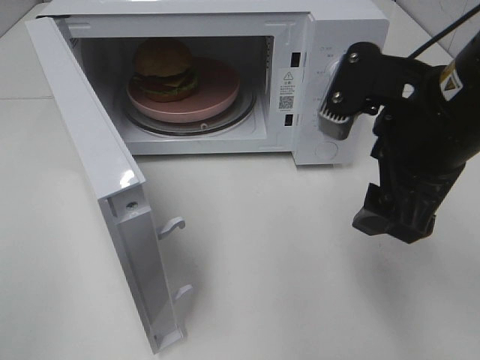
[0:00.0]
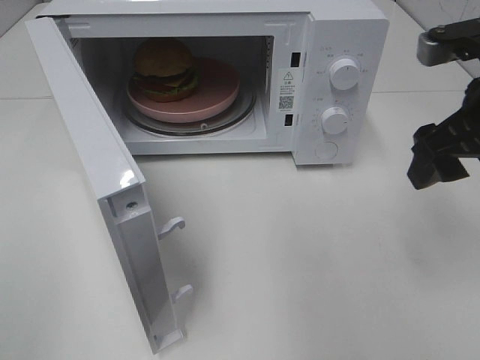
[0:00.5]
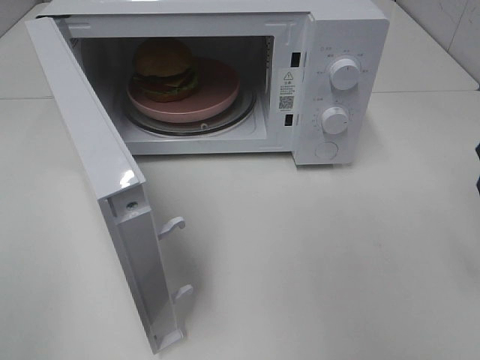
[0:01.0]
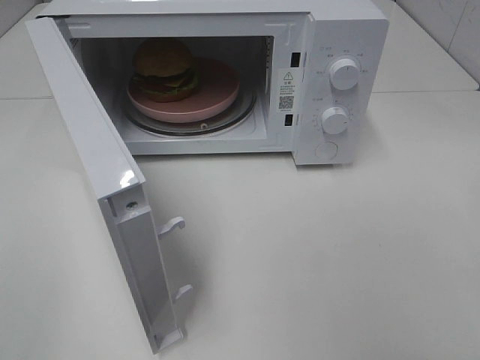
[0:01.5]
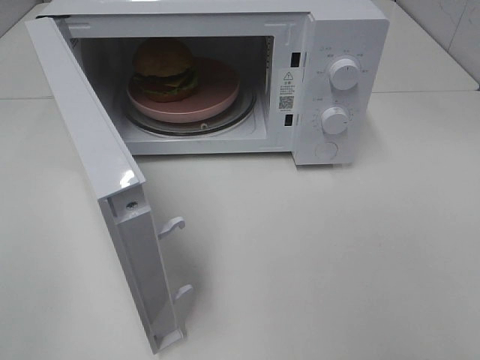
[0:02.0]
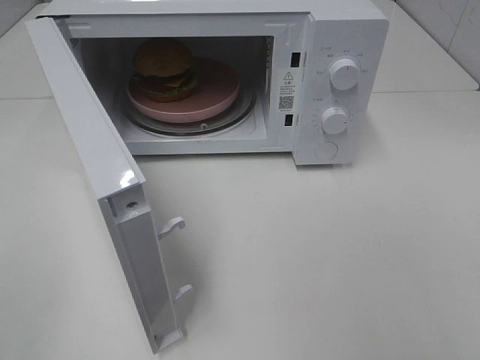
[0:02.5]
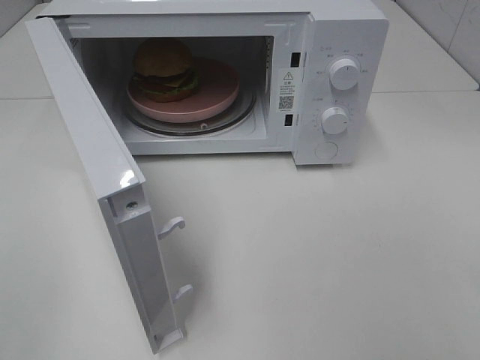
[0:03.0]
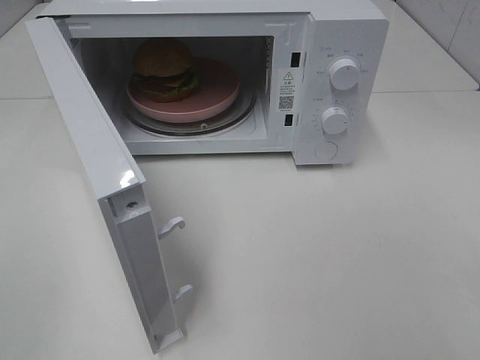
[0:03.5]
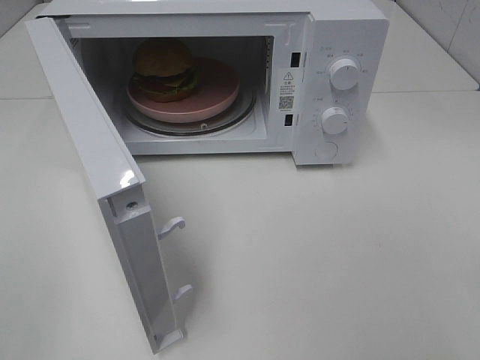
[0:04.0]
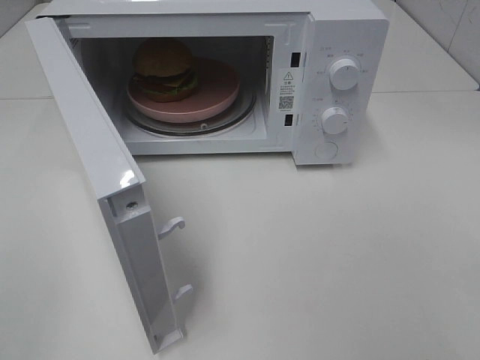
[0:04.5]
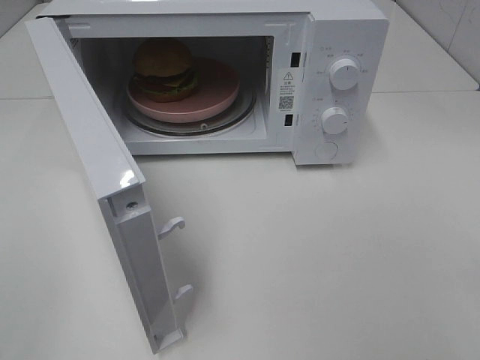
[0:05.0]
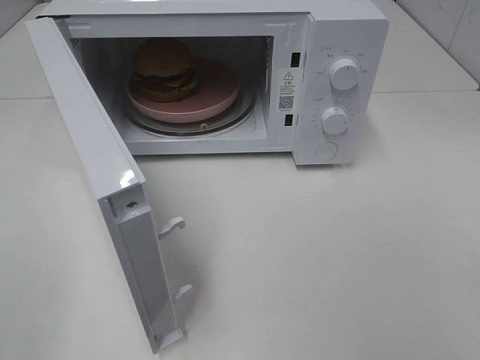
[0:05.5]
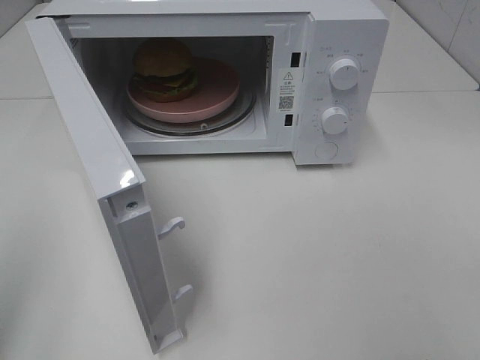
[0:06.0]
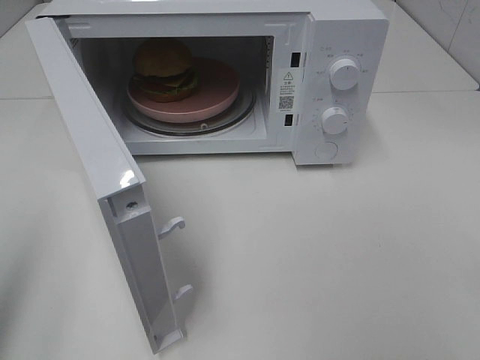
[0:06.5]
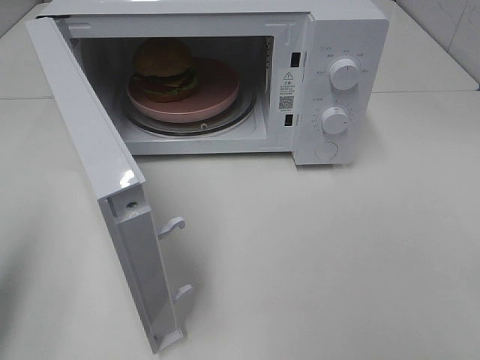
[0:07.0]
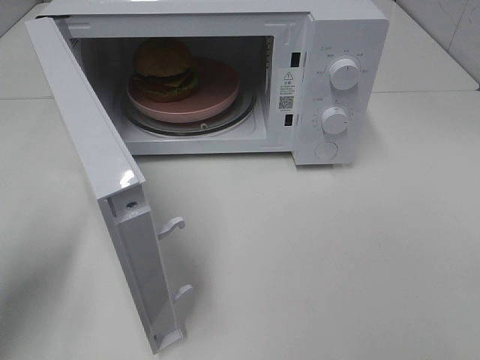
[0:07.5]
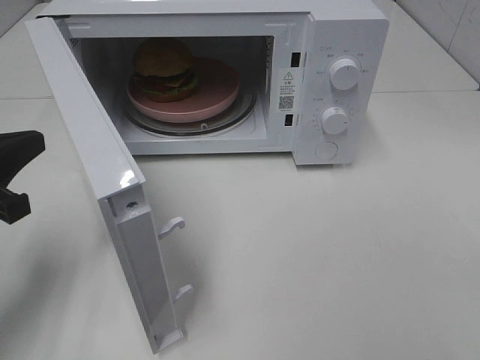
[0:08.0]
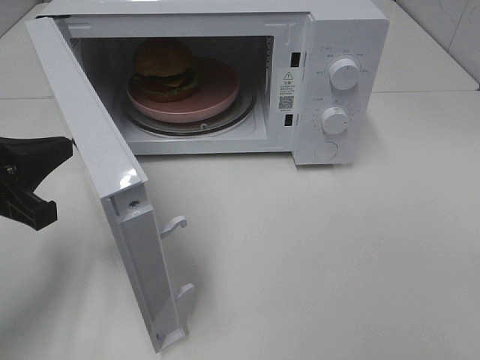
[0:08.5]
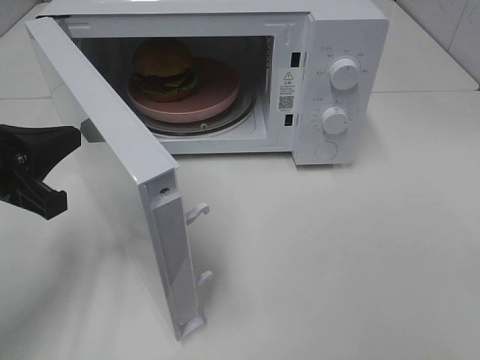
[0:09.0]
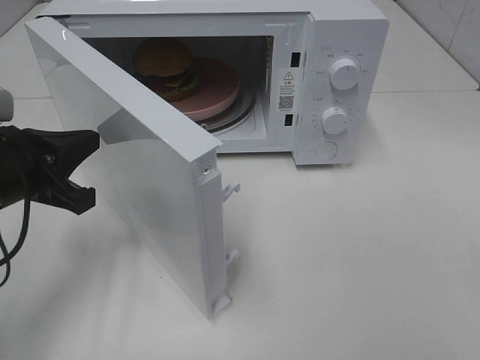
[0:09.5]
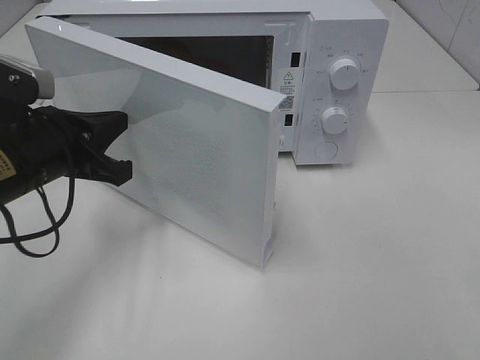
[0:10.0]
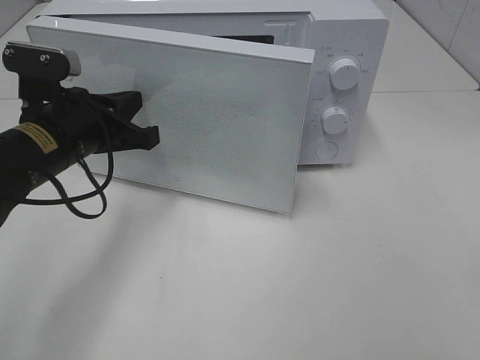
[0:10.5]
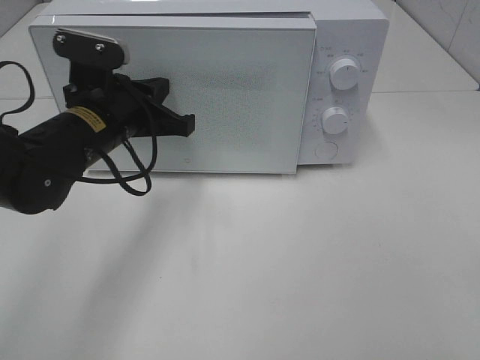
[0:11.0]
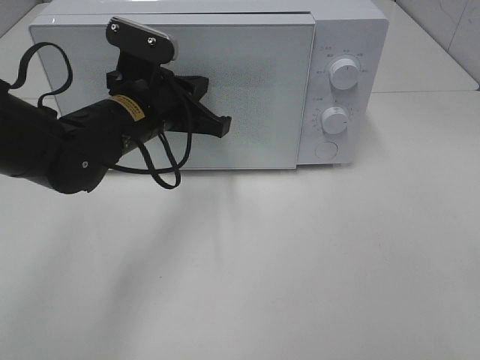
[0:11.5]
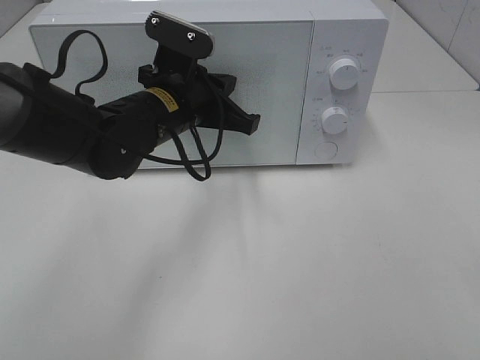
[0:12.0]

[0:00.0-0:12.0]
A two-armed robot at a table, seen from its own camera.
Task of the whole recording: Heat the burger.
Step, 0:00.0 to 0:11.5: Left hand: close the microwave door.
0:00.0 to 0:02.0: The right gripper goes roughly 25 cm backward and to the right.
0:06.0 to 0:08.0: The left gripper travels forward and downward by roughly 20 cm.
0:08.0 to 0:10.0: The left gripper goes approximately 10 cm to the right and forward.
0:10.0 to 0:12.0: The left gripper heads to the right and forward, covering some 15 cm.

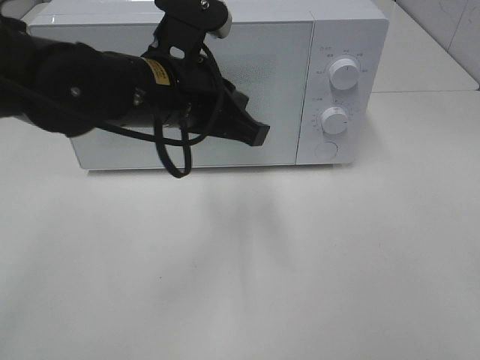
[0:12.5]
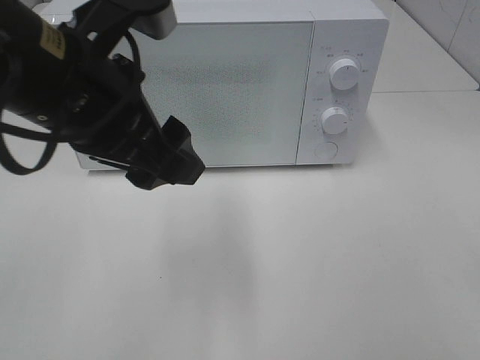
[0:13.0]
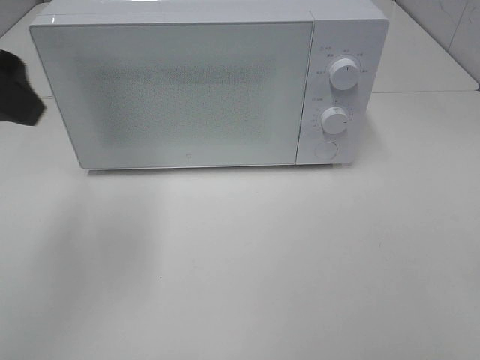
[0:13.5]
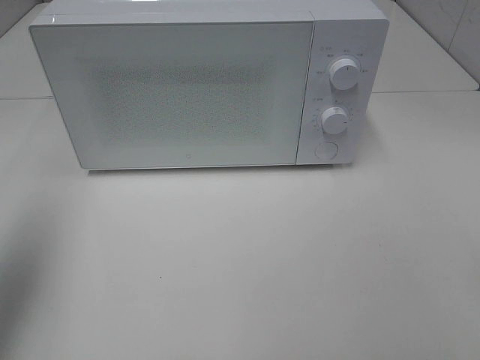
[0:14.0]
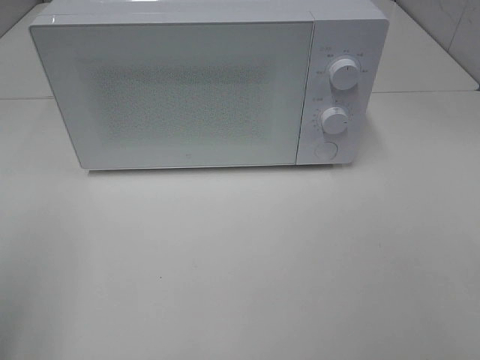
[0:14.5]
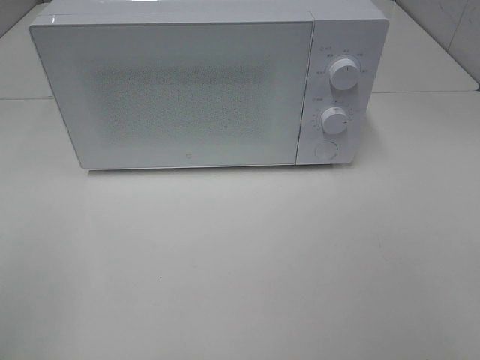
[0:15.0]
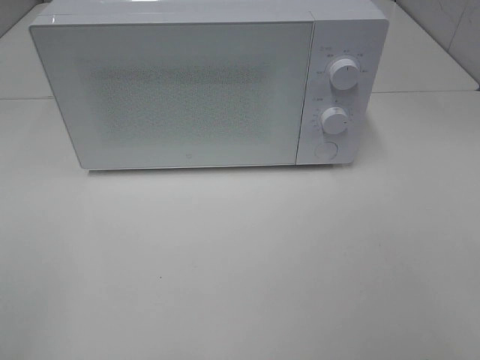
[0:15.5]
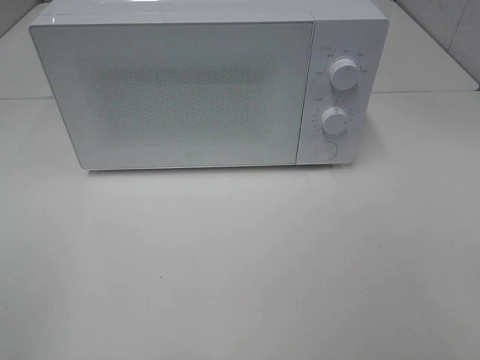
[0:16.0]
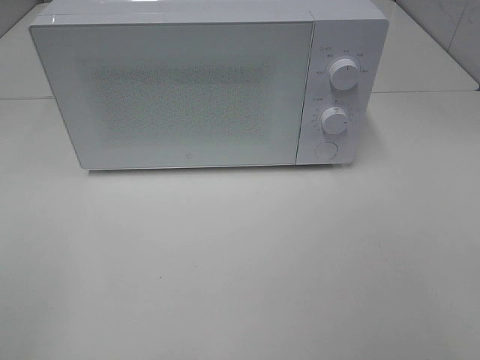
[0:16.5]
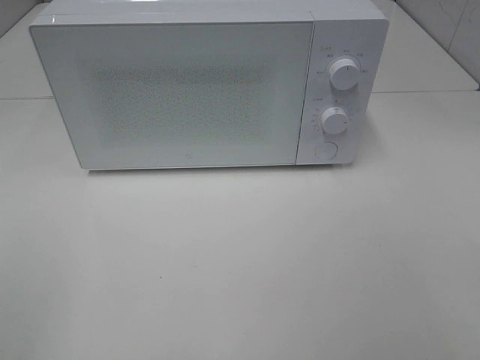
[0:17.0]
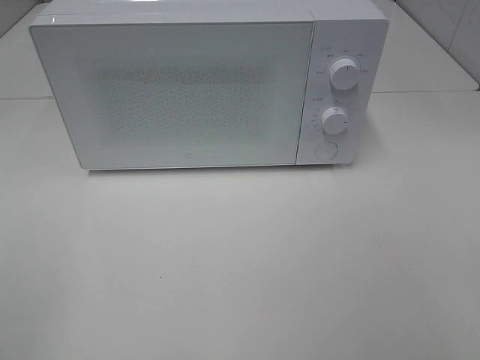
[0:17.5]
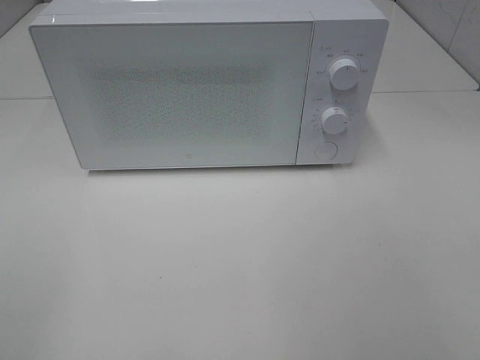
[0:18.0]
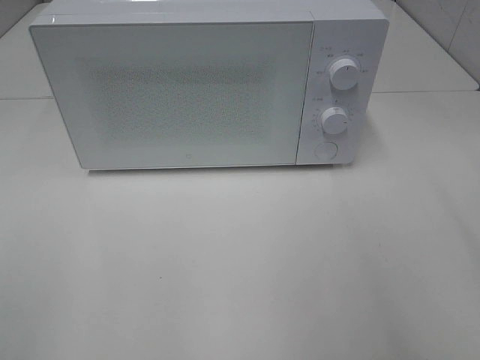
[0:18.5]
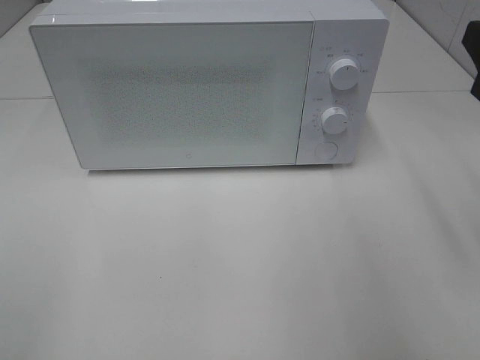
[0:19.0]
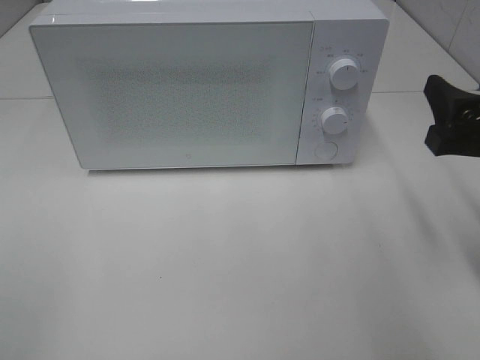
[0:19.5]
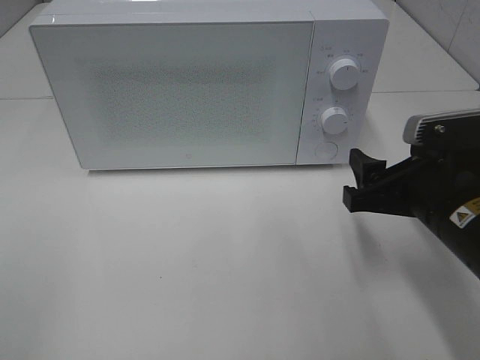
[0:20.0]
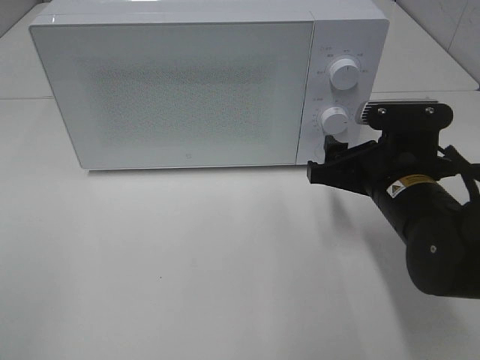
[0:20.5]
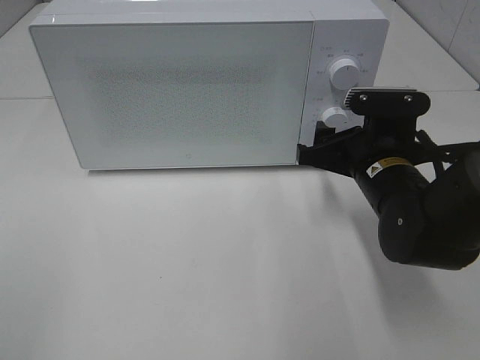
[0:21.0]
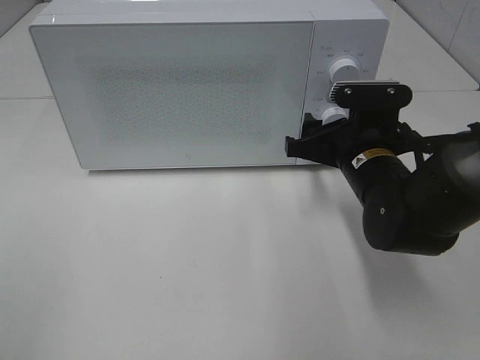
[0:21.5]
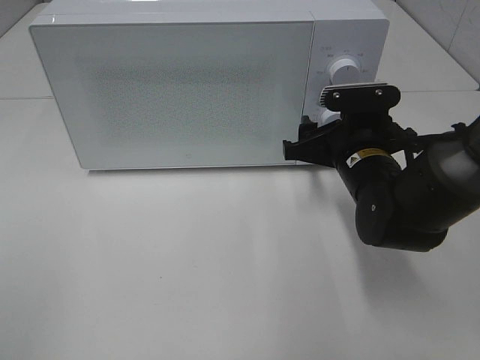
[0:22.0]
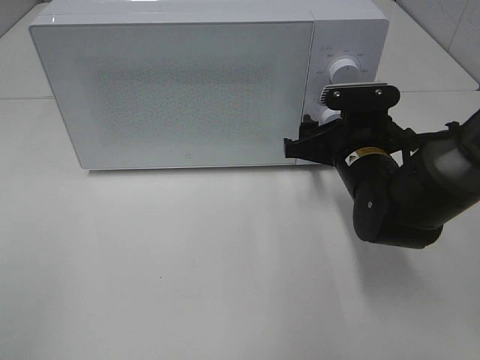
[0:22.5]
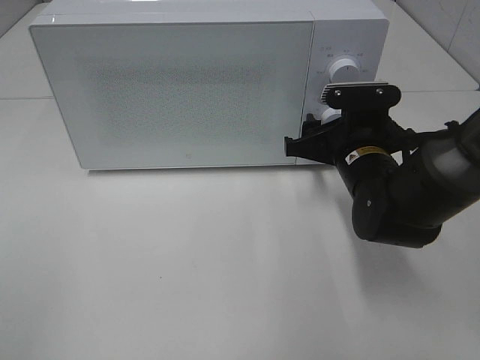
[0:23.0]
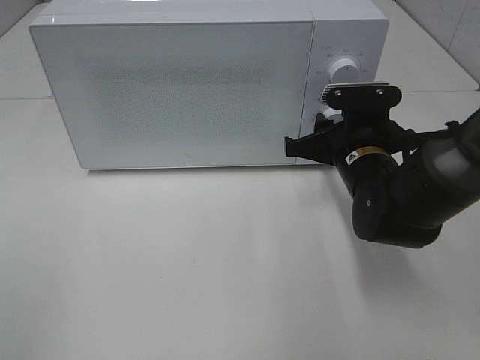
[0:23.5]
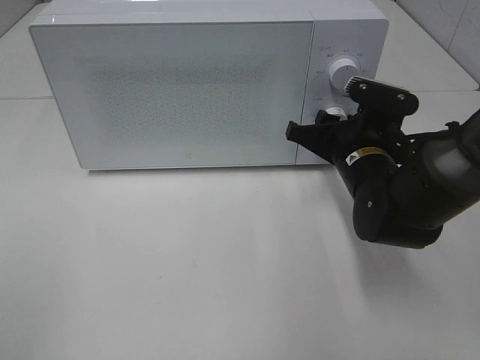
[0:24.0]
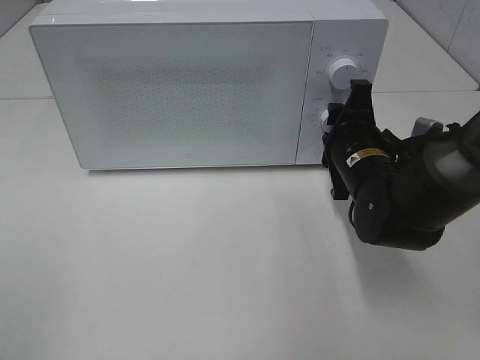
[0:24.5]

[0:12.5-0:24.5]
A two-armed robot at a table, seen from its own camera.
Task of the whole recording: Heat the burger.
0:12.5 to 0:14.5: The left gripper shifts some 30 cm to the left and backward, and opens up.
0:18.5 to 0:20.5: The right gripper goes some 25 cm downward, forward and to the left.
0:20.5 to 0:22.5: The right gripper travels forward by some 5 cm.

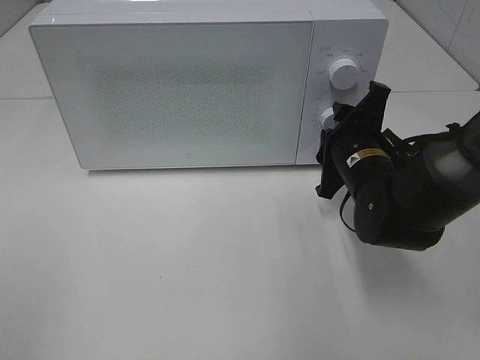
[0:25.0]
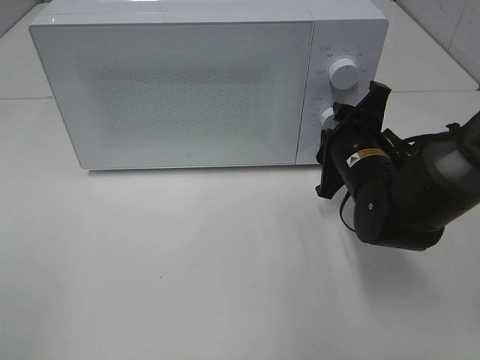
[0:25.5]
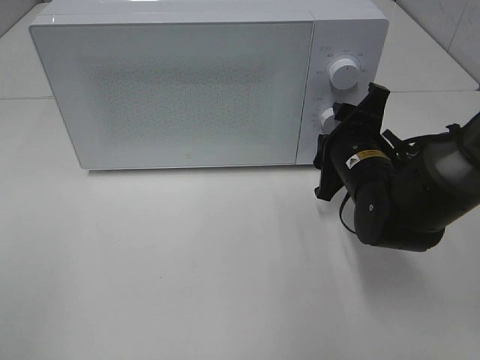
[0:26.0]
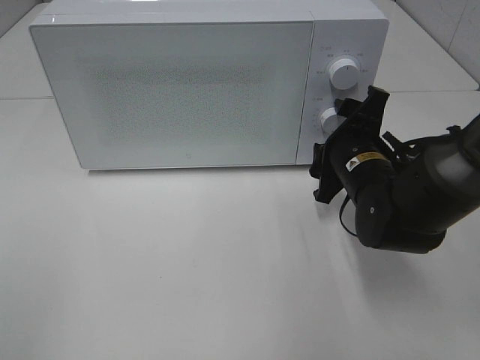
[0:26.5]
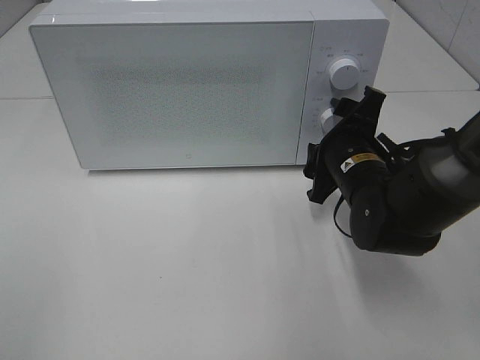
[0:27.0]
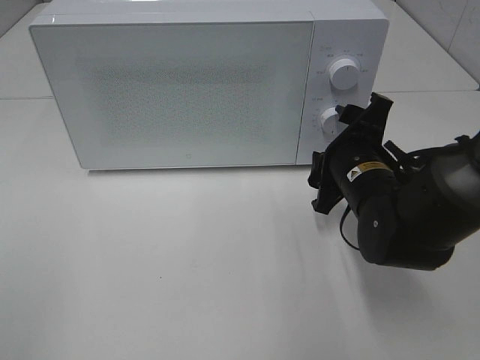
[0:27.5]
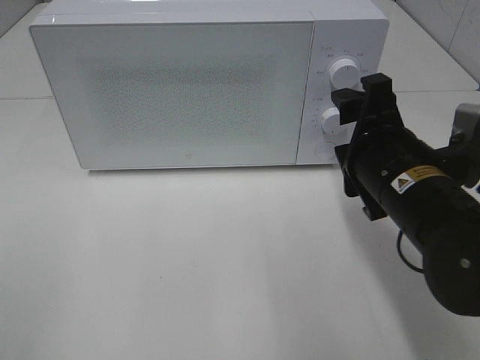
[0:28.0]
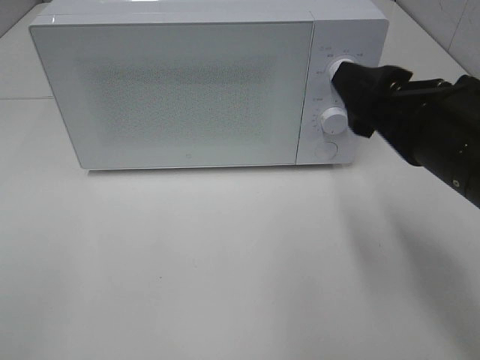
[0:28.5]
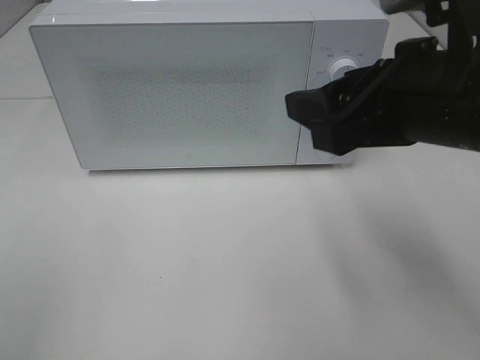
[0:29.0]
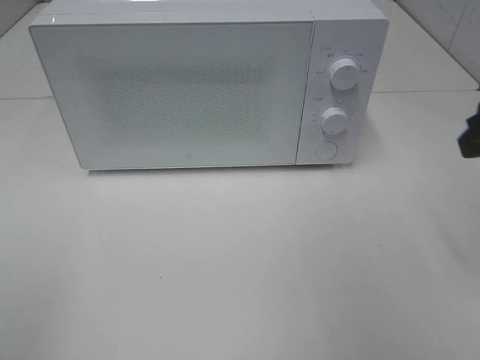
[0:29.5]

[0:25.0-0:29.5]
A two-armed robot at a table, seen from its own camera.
Task of the whole recording: Heat the burger.
0:25.0 to 0:27.0: Both grippers stay about where they are.
0:27.0 to 0:29.5: The right gripper is displaced upward, to the right and backward by some 25 cm.
